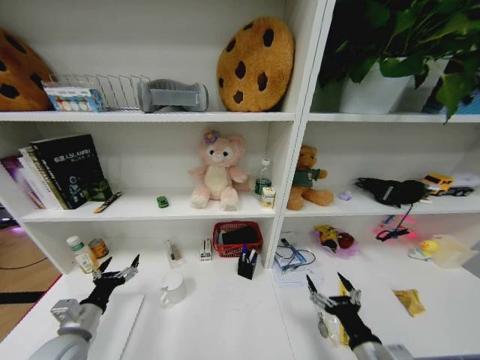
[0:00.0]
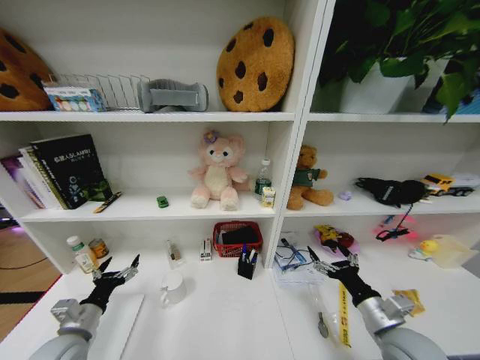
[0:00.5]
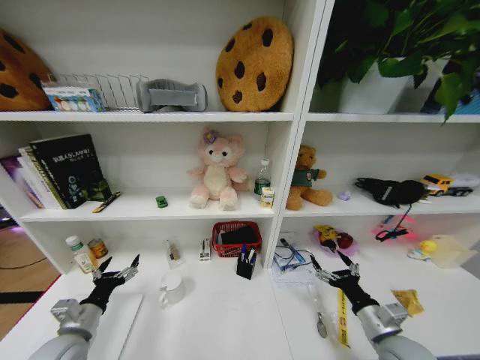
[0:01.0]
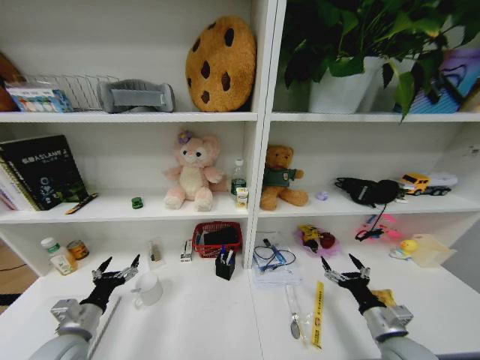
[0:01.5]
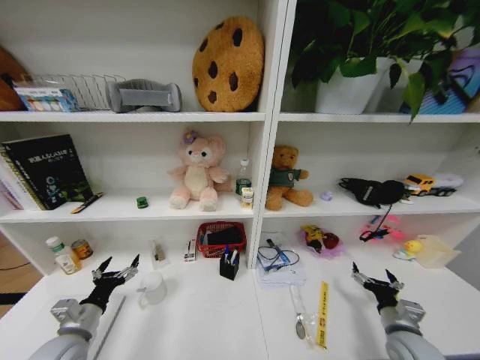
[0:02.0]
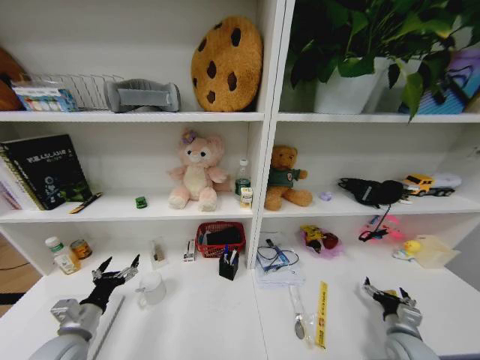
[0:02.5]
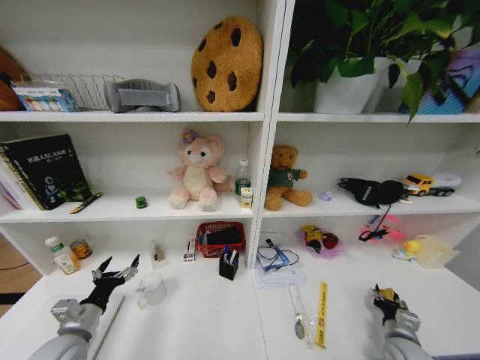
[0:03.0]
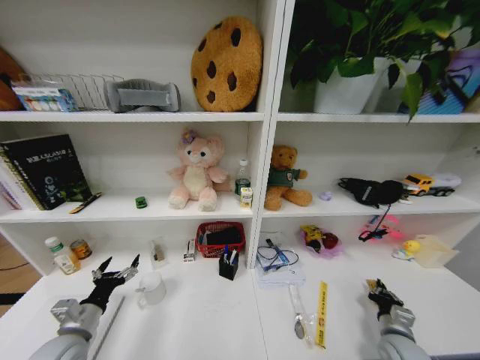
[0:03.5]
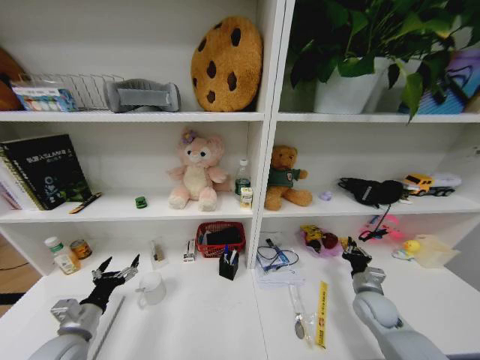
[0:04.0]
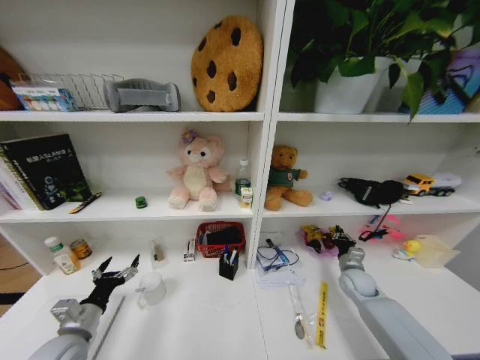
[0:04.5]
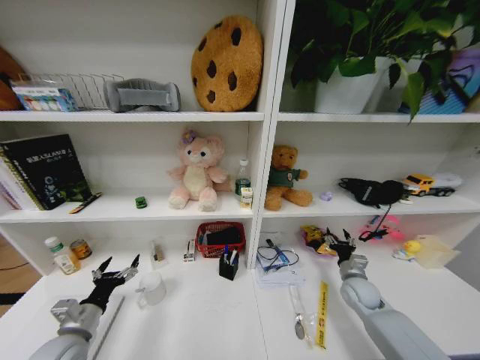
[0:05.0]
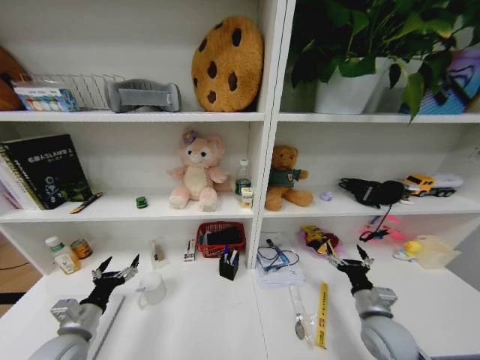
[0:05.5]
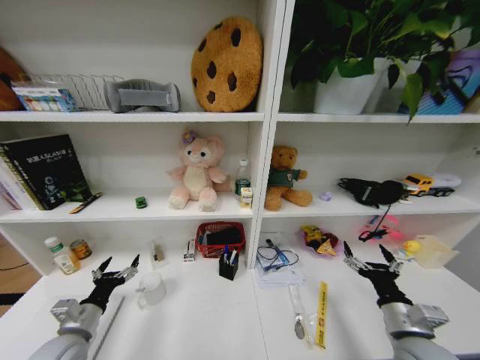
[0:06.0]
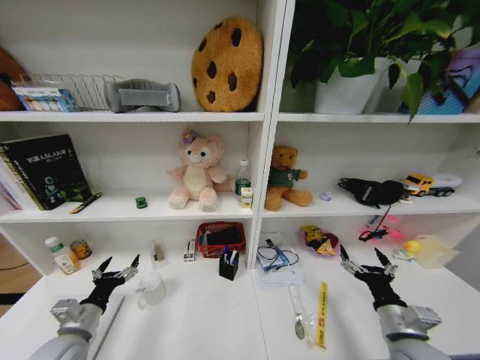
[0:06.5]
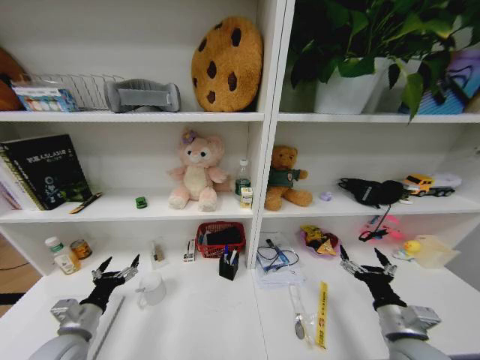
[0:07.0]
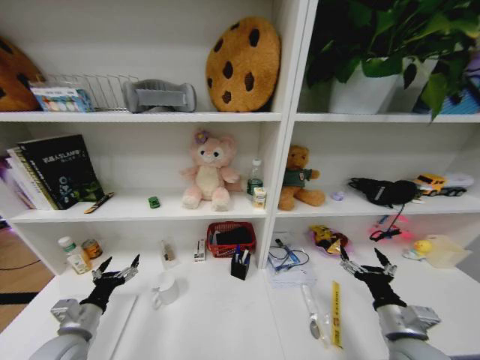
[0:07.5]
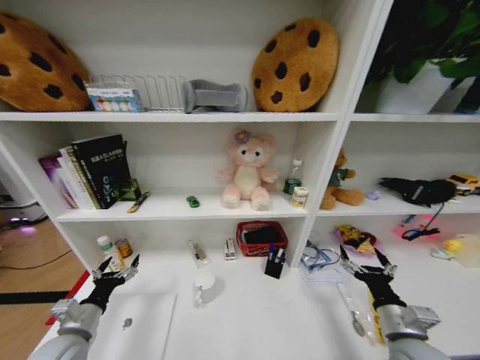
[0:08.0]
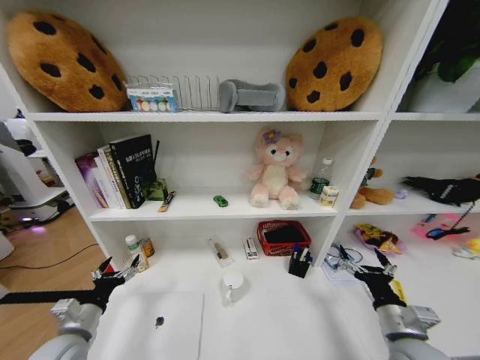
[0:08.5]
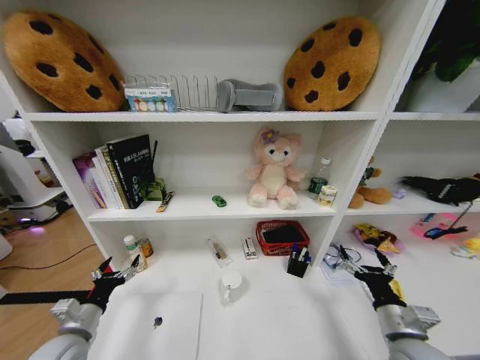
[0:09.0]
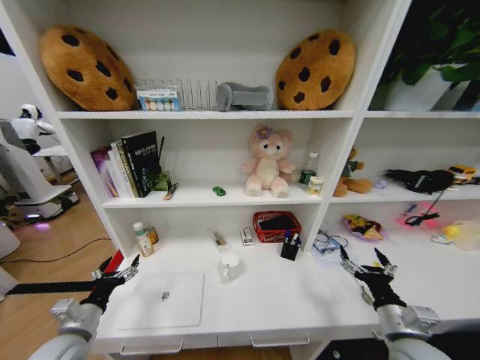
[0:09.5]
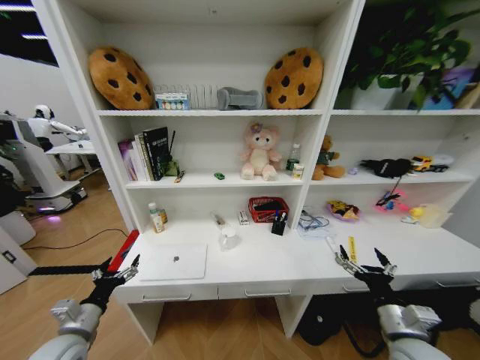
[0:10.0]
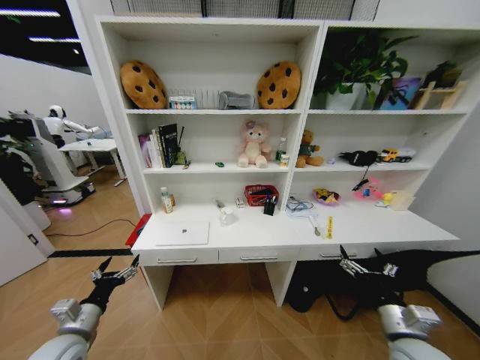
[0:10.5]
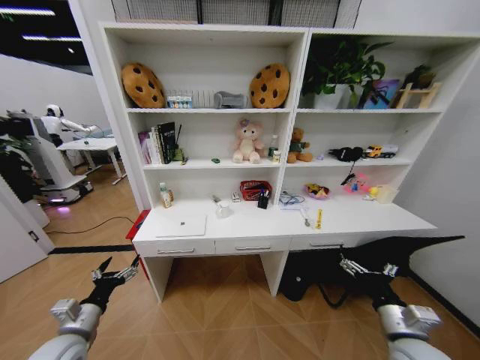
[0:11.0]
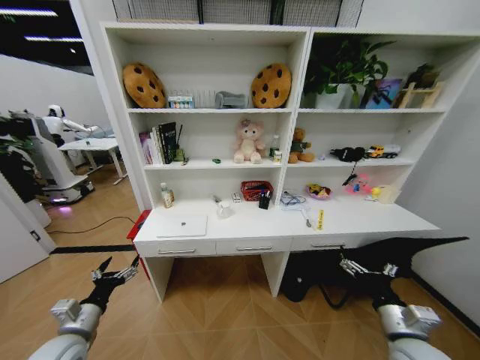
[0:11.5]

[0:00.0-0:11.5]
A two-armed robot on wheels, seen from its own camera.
Task of the whole recording: Organize the objects on the table.
0:00.0 to 0:02.0: The right gripper goes approximately 20 cm to the right, forward and downward.
0:02.0 to 0:04.0: The right gripper heads forward, covering about 10 cm, and closes its fingers.
0:04.0 to 0:06.0: The right gripper heads backward and upward, covering roughly 15 cm, and opens its fingers.
